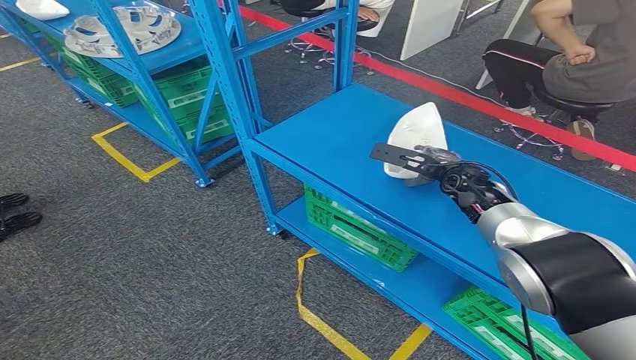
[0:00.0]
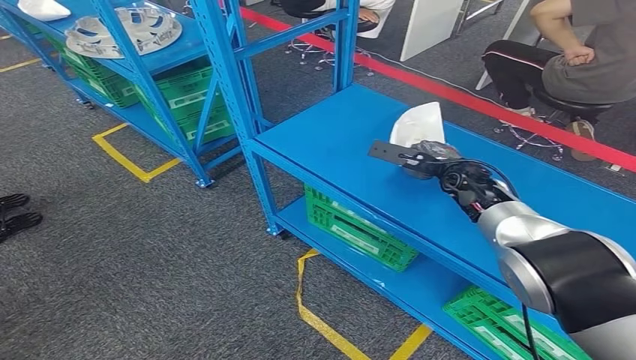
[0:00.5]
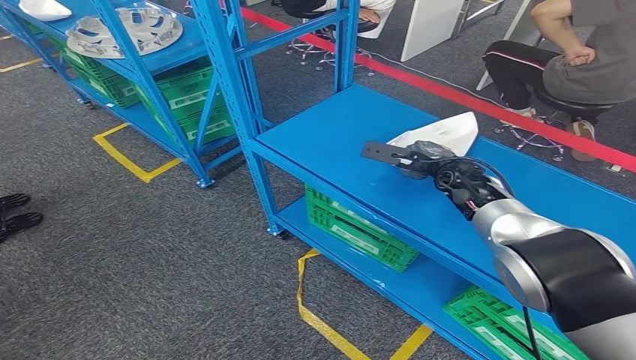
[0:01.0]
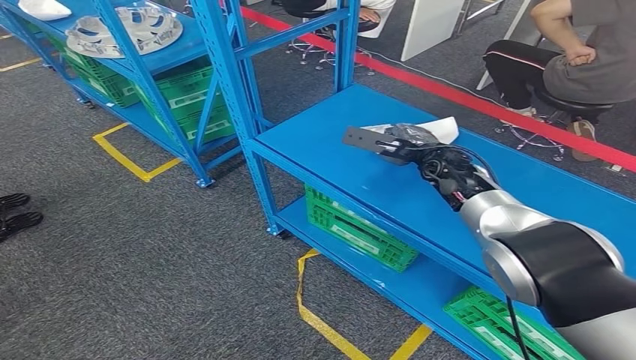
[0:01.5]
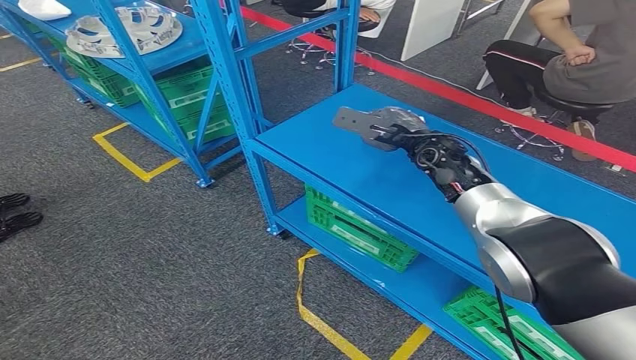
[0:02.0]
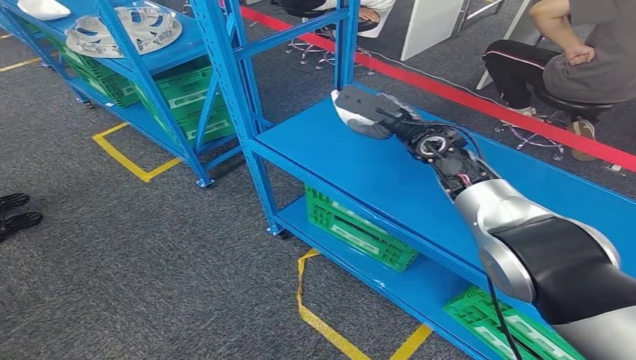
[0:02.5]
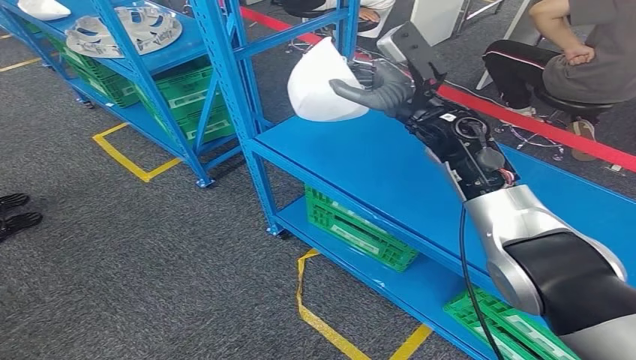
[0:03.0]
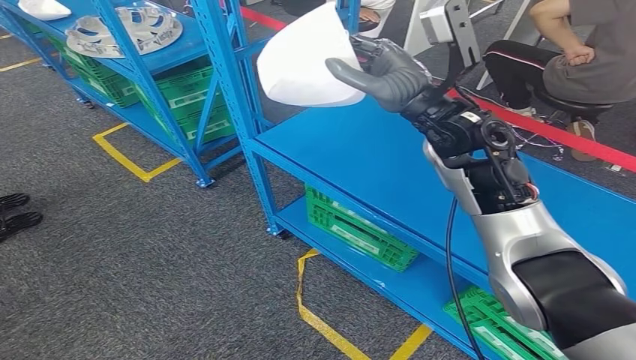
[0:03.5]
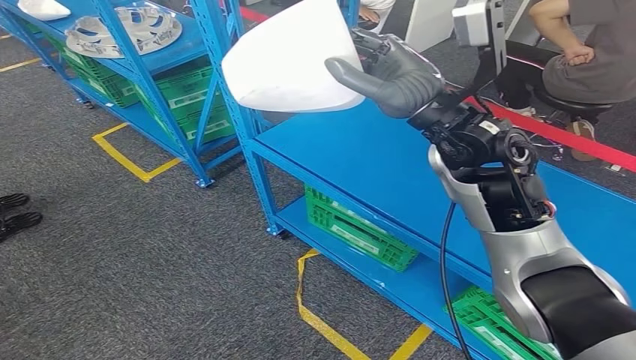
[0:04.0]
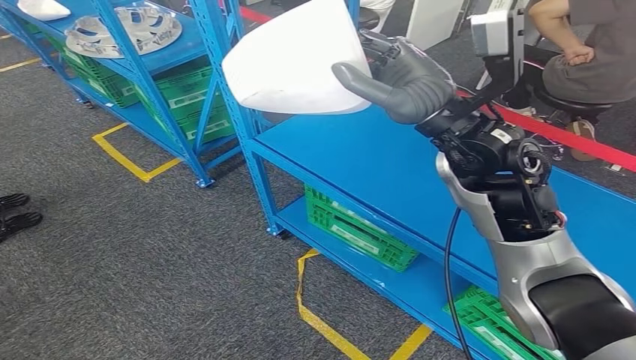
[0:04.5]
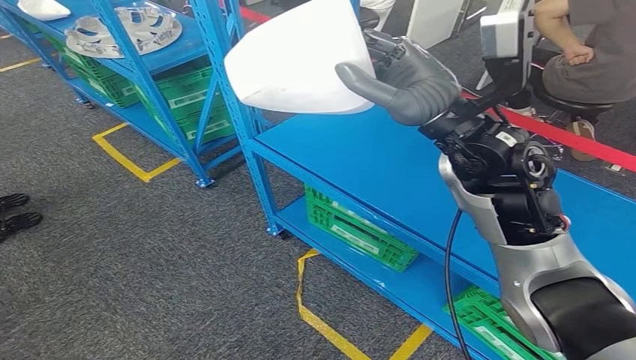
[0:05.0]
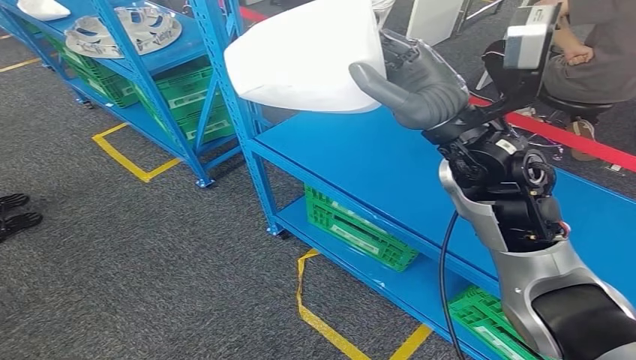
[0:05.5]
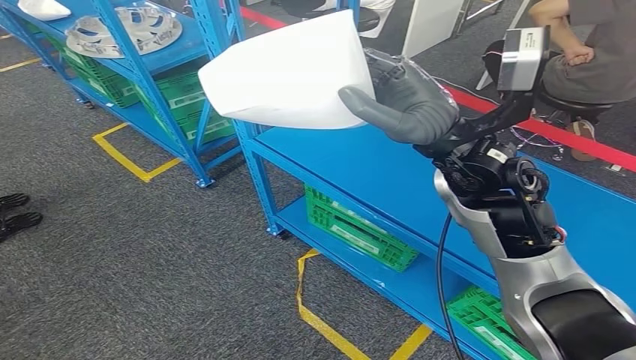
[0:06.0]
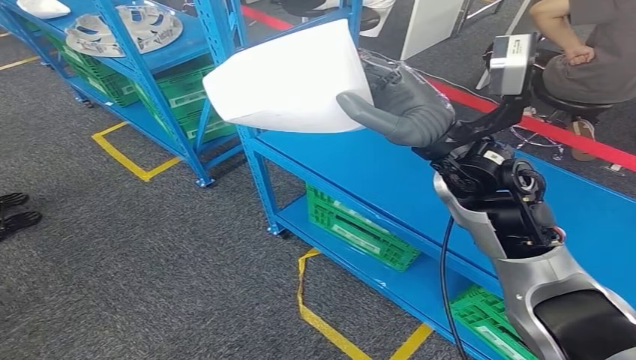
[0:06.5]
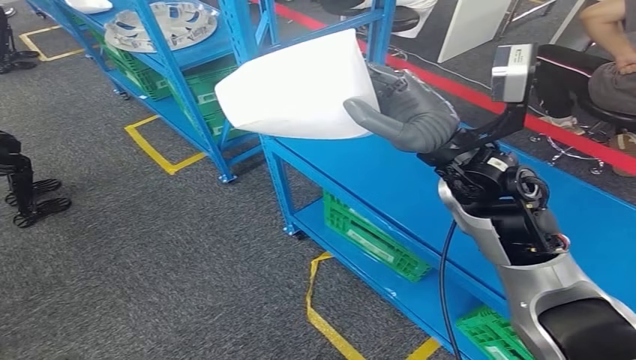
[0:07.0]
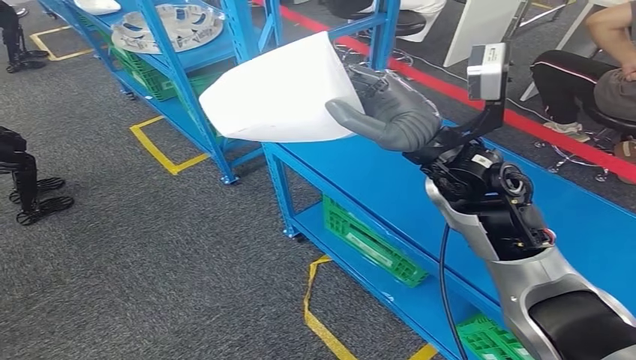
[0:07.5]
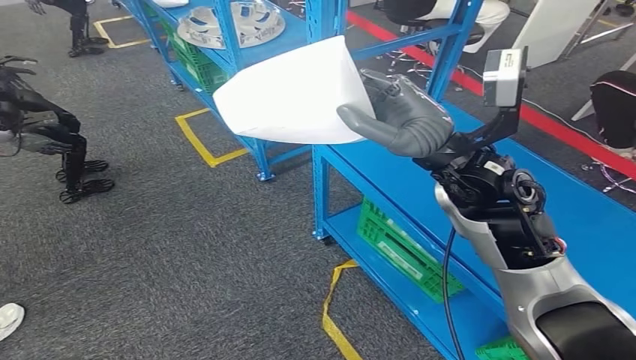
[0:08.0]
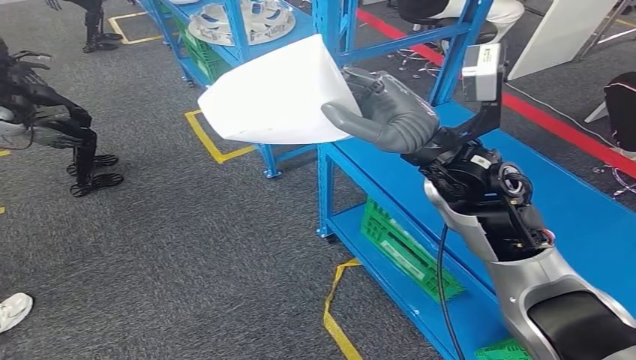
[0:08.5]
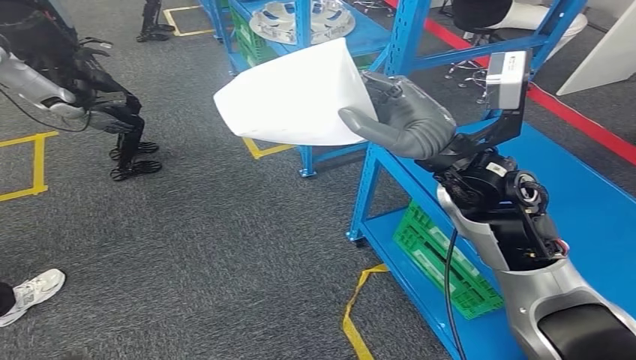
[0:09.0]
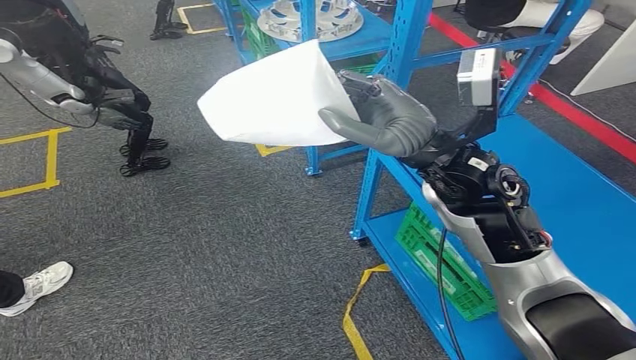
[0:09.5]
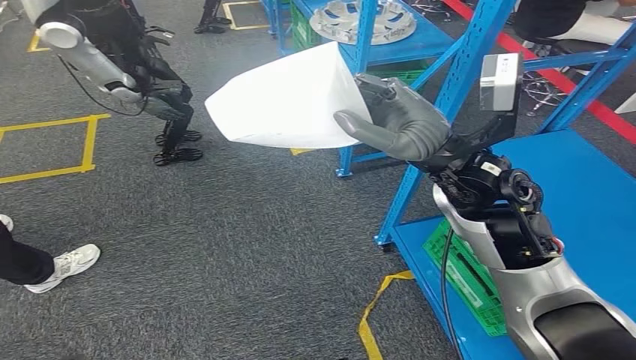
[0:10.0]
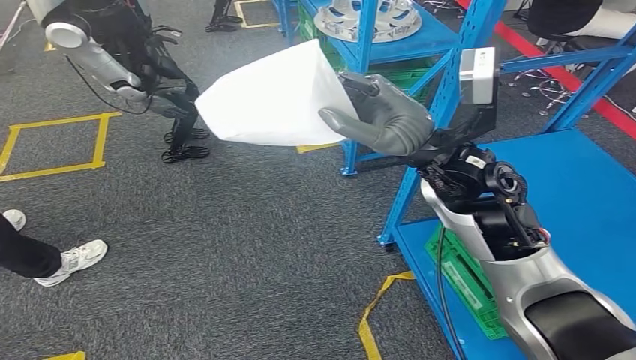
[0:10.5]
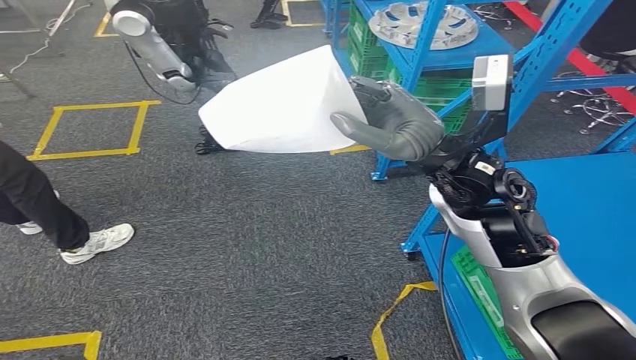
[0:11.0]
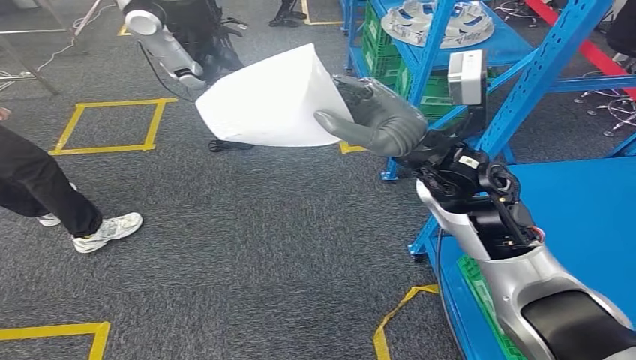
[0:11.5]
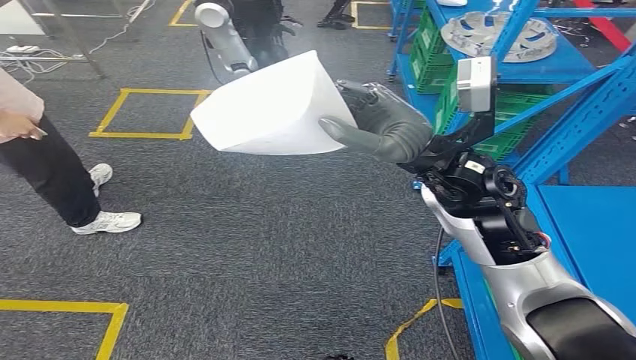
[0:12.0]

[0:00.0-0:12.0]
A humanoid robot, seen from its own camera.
Step, 0:00.0 to 0:02.5: Pick up the small parts from the shelf.
0:00.0 to 0:02.0: The right hand is displaced upward and to the left by about 10 cm.
0:04.0 to 0:06.0: There are only small adjustments of the hands.

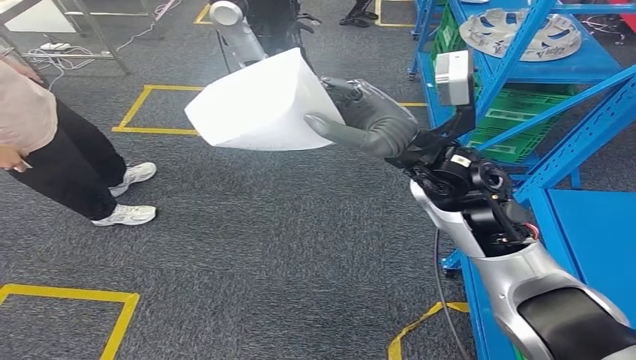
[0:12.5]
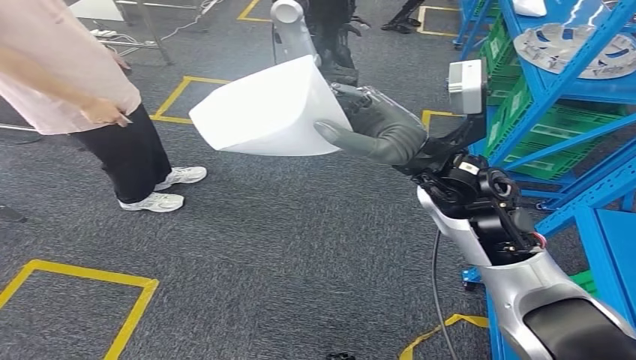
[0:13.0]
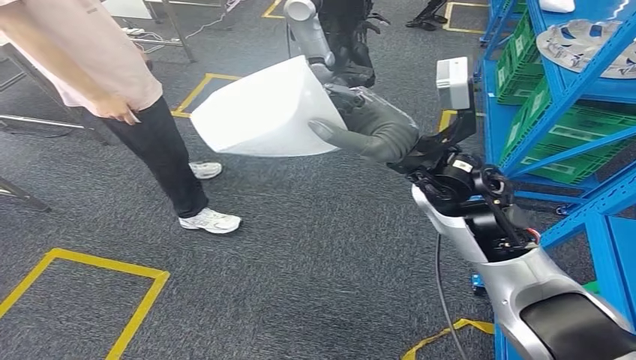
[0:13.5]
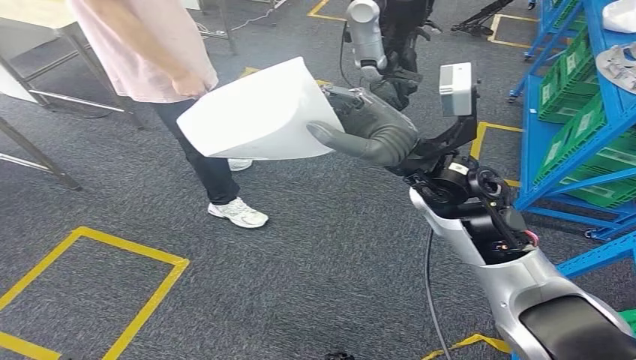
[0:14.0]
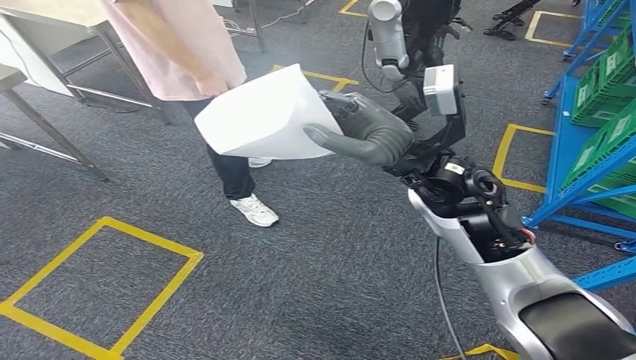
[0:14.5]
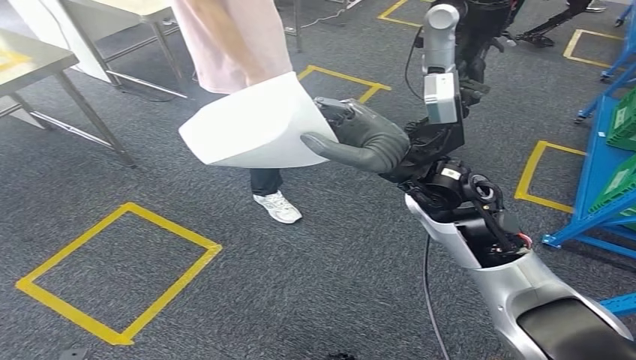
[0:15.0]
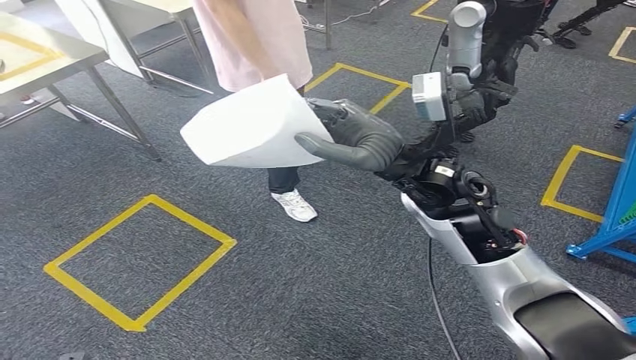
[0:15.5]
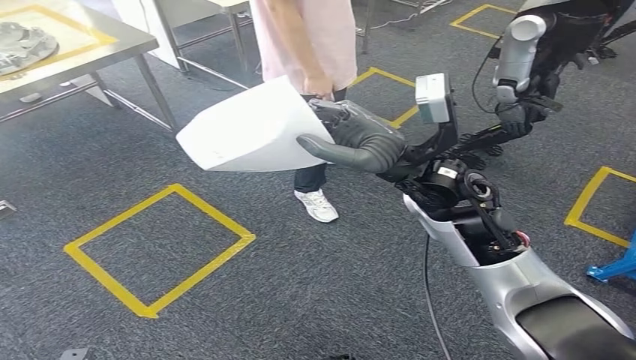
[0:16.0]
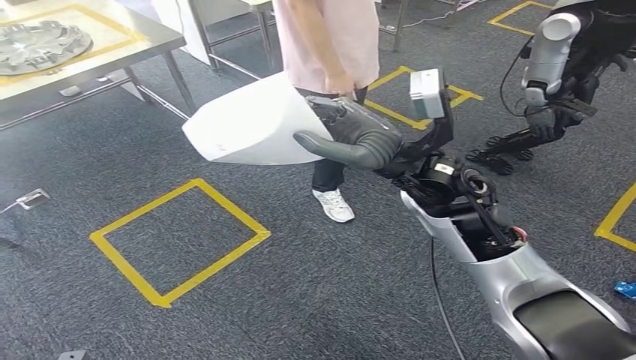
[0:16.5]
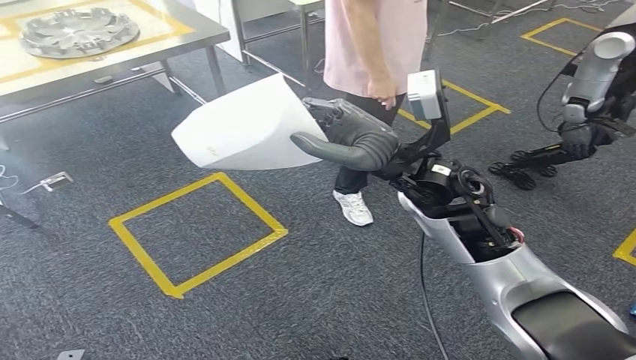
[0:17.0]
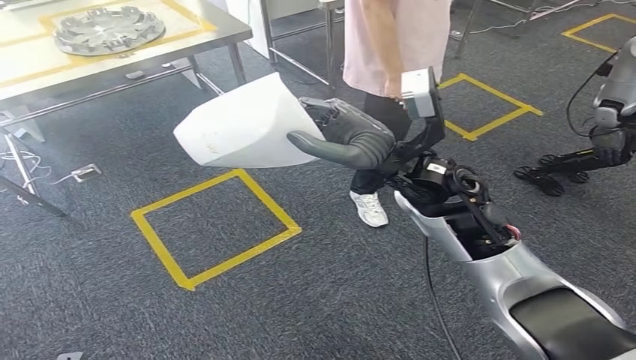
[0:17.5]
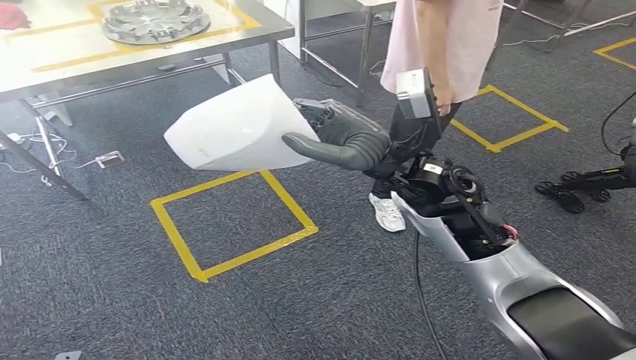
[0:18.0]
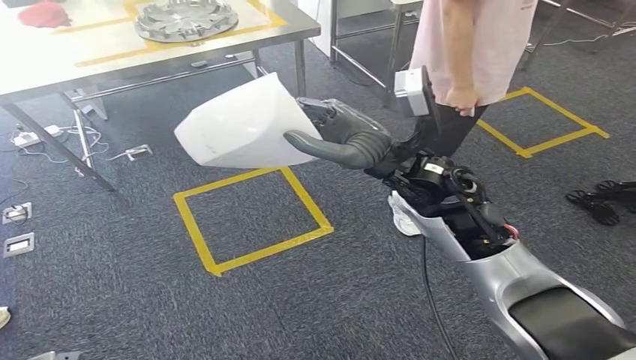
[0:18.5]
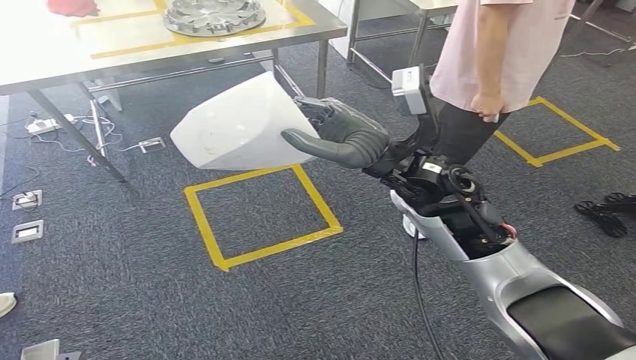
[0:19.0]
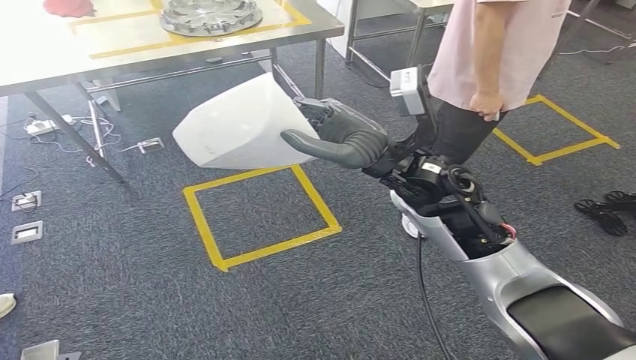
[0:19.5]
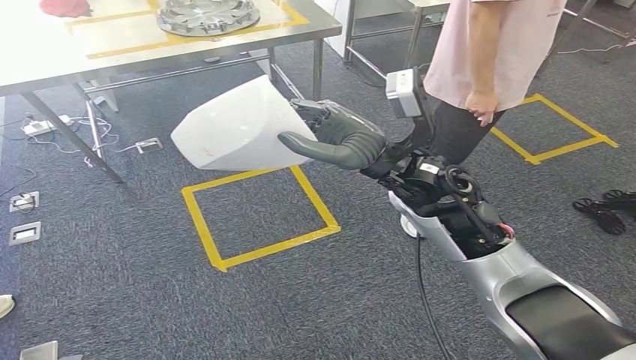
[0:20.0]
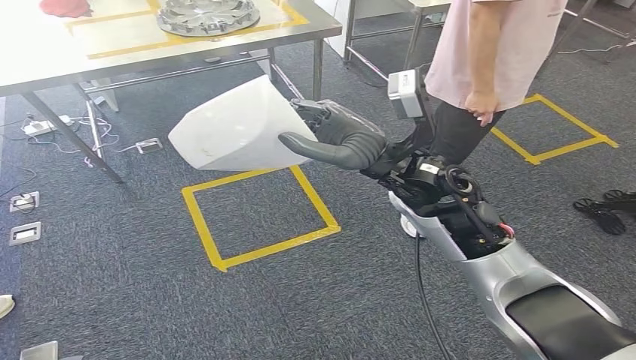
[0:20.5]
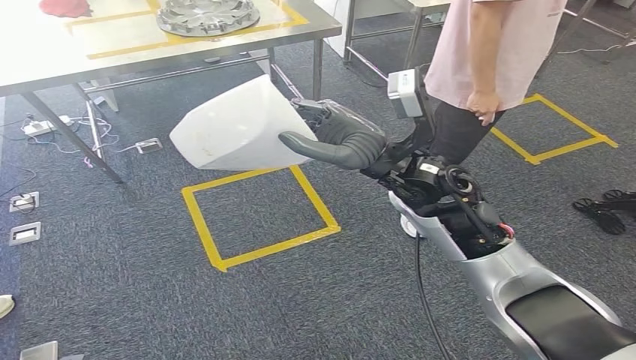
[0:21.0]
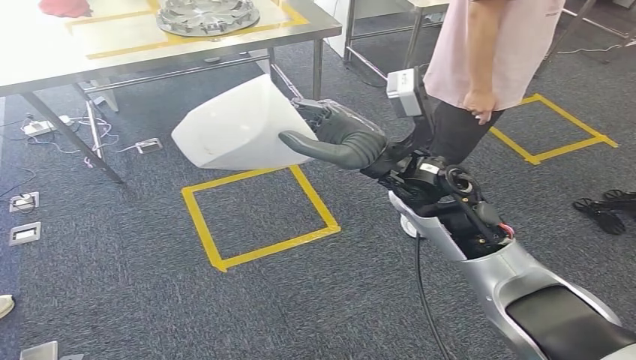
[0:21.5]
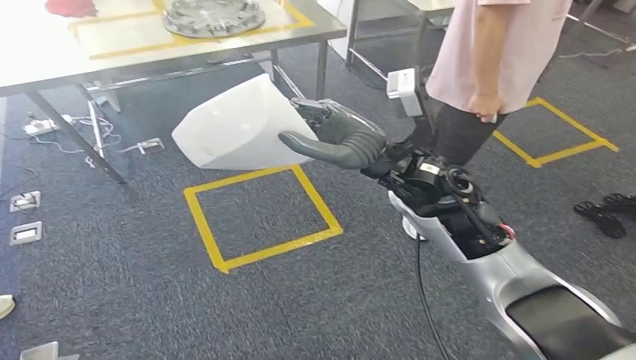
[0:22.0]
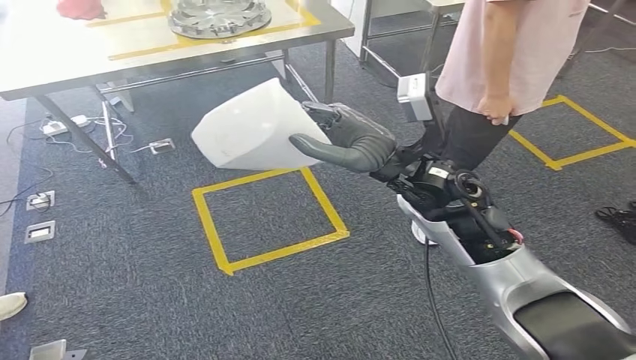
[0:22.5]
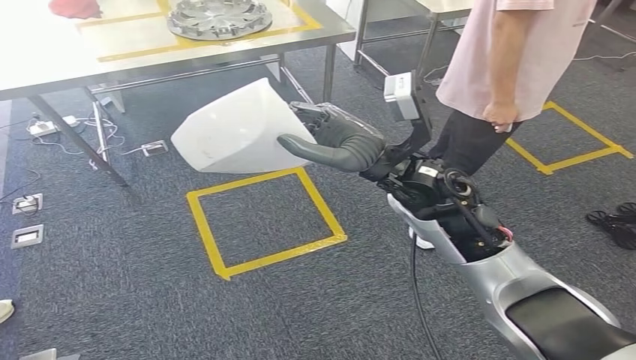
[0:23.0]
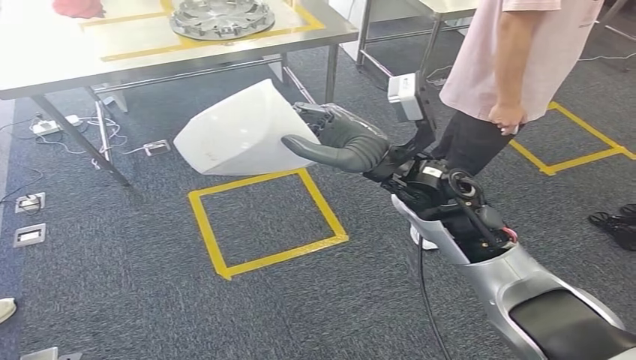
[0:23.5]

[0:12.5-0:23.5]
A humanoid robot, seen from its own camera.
0:20.0 to 0:21.5: Neither hand changes place.
